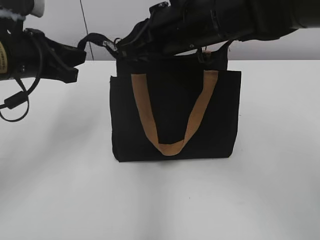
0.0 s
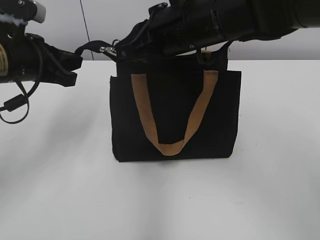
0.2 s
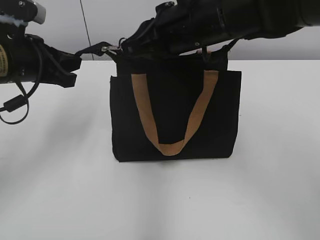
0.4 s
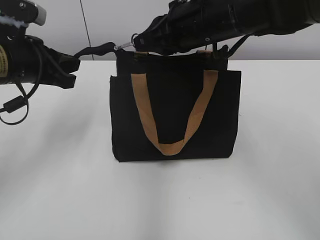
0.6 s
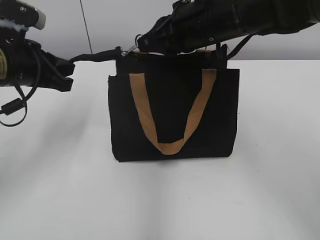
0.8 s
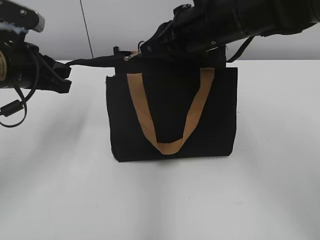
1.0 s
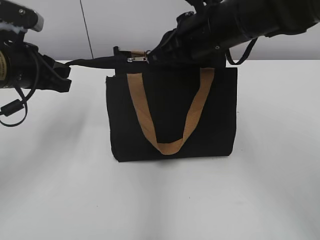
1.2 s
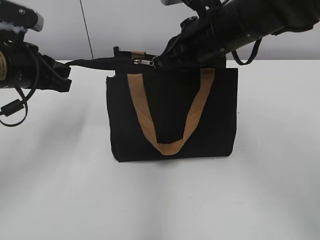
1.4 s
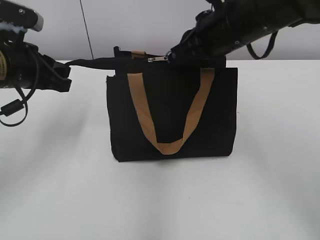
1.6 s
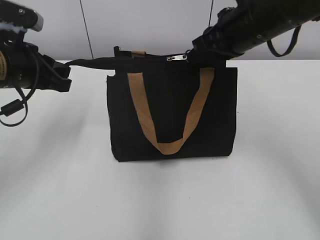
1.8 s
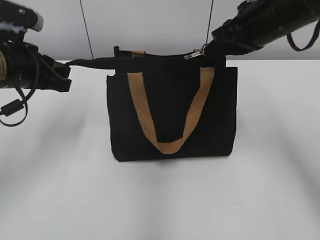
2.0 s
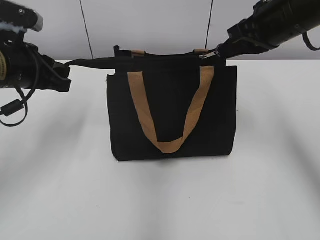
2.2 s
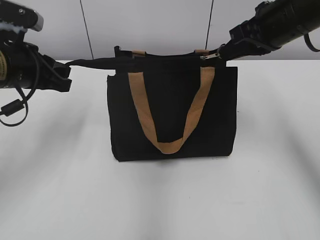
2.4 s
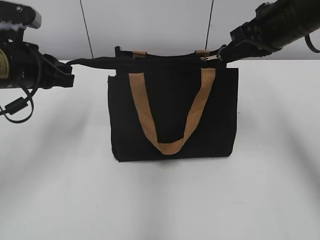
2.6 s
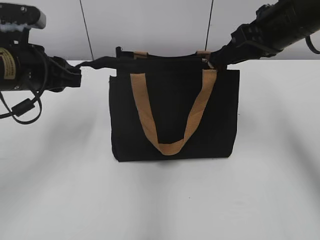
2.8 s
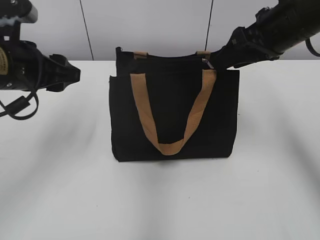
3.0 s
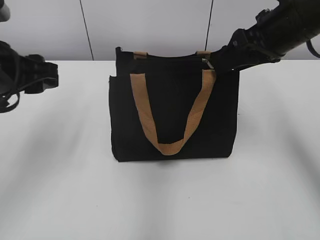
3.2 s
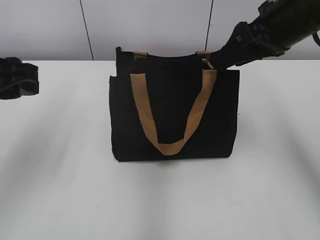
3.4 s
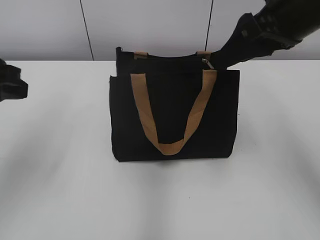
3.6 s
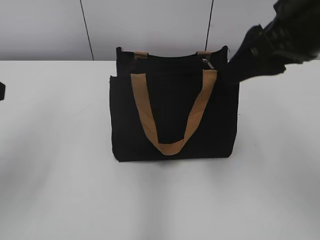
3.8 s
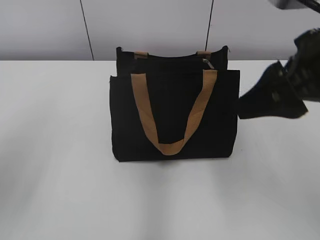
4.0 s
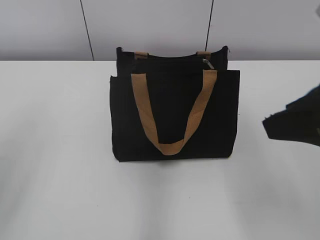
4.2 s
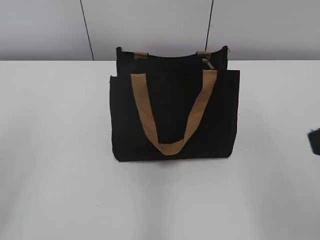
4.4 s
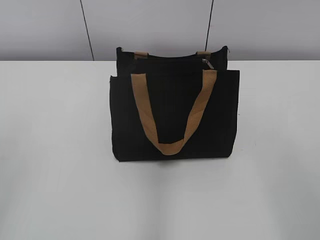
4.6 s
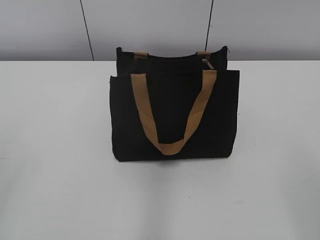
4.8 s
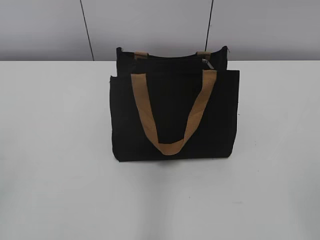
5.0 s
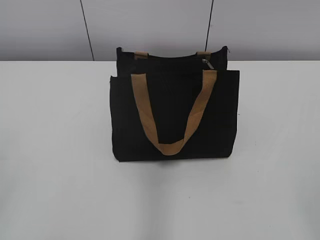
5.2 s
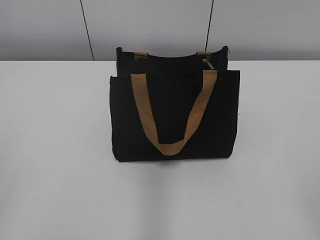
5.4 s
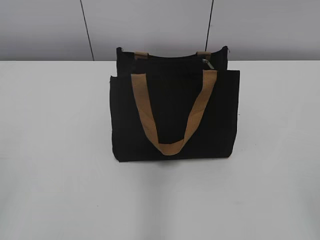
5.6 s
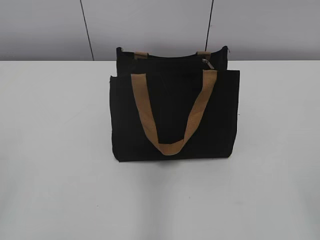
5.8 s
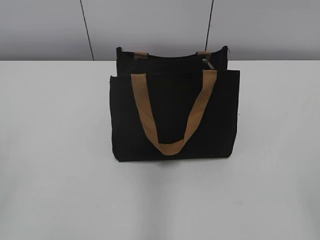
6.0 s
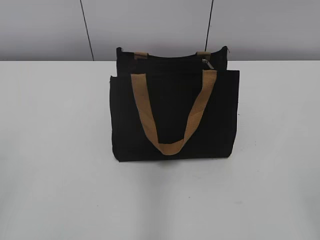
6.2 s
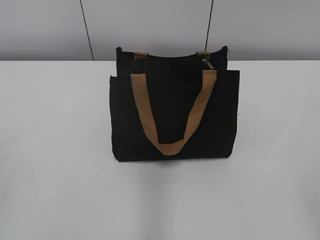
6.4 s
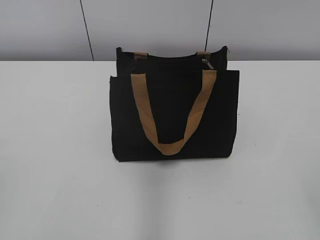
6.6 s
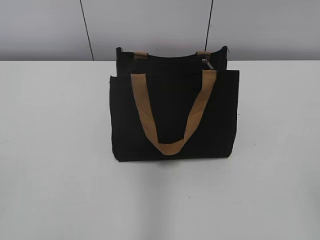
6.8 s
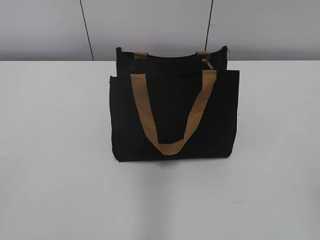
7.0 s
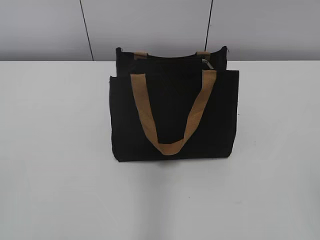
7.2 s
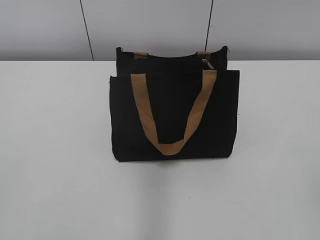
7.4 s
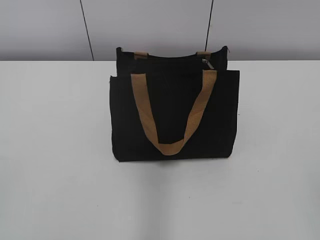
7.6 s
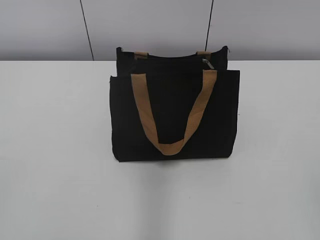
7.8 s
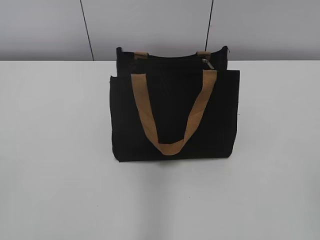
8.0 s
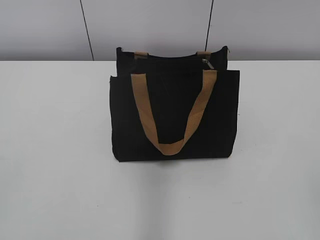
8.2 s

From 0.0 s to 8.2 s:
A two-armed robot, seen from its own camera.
Step, from 0.0 s to 2.6 s: Zip up the bag with your right hand.
From 0.0 s to 1.6 s: The right gripper heads to the right, covering roughly 5 cm.
From 1.6 s to 3.2 s: The right gripper is displaced to the right by approximately 10 cm, and opens its fingers. Meanwhile the left gripper opens.
From 3.2 s to 5.0 s: The left gripper shifts approximately 25 cm backward and to the left; the right gripper is displaced backward by some 35 cm.

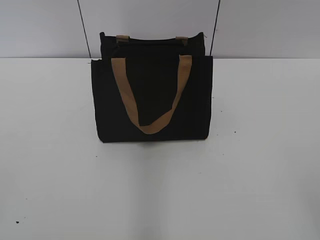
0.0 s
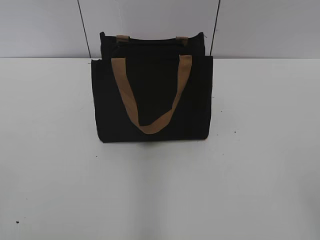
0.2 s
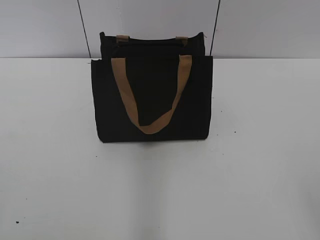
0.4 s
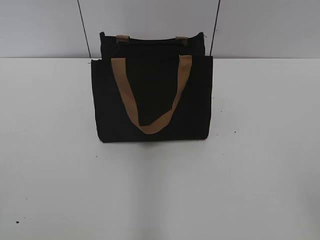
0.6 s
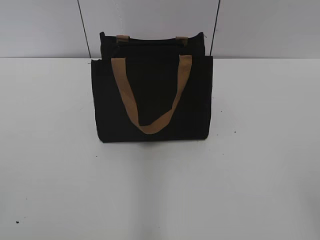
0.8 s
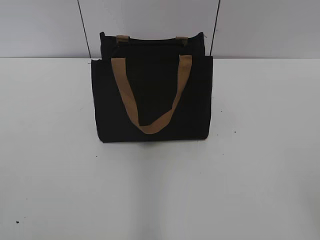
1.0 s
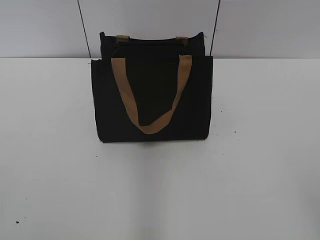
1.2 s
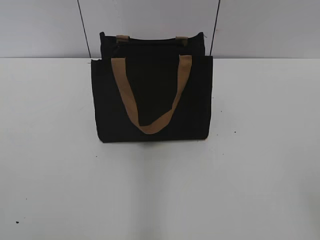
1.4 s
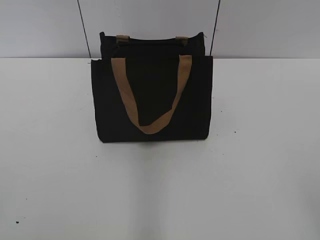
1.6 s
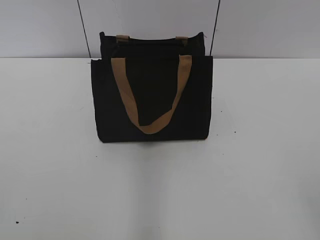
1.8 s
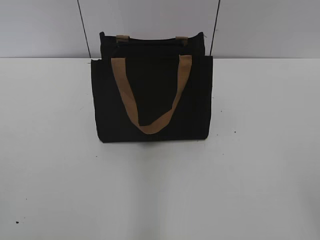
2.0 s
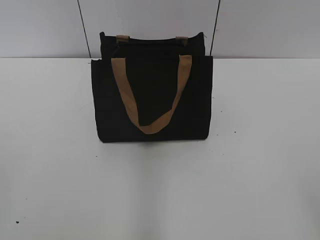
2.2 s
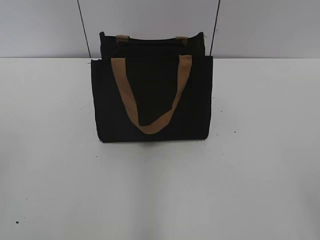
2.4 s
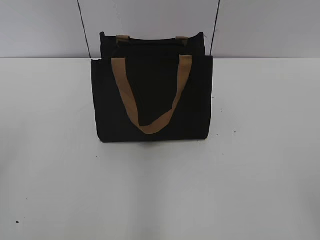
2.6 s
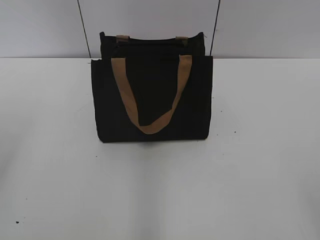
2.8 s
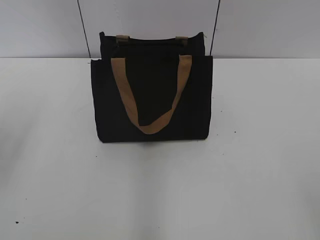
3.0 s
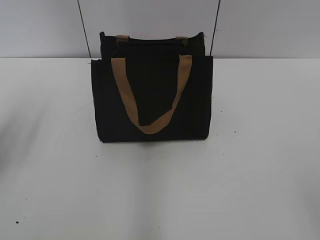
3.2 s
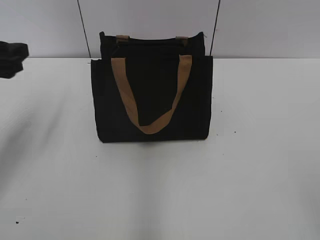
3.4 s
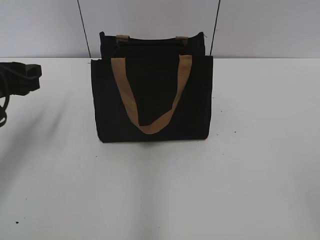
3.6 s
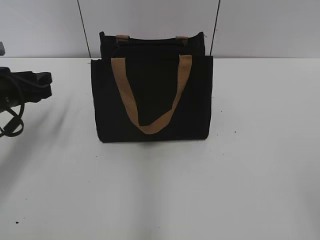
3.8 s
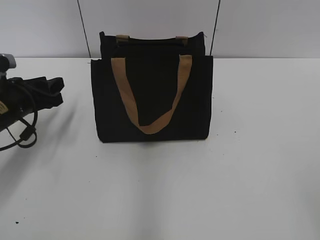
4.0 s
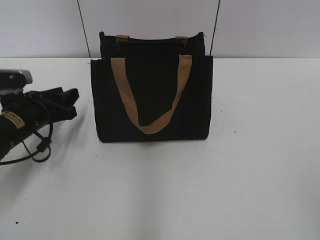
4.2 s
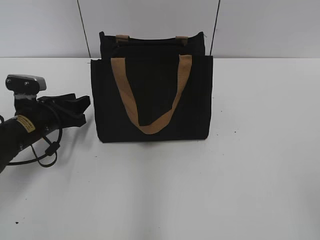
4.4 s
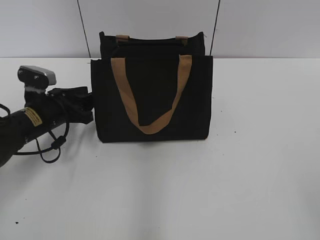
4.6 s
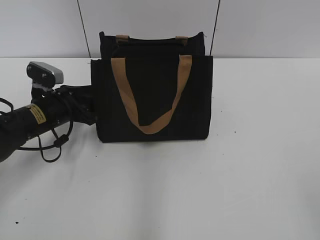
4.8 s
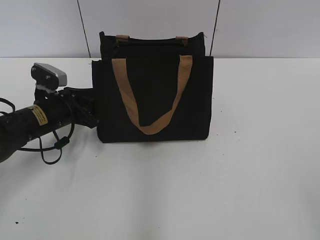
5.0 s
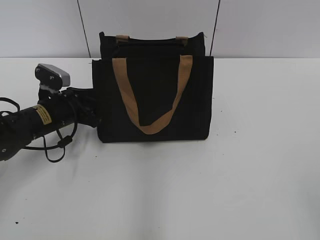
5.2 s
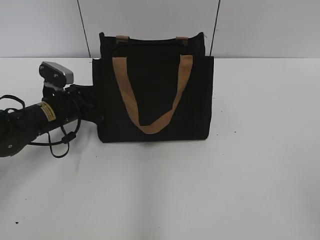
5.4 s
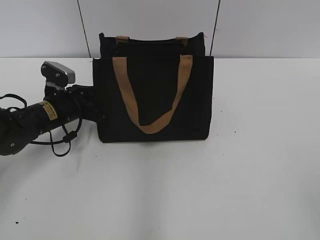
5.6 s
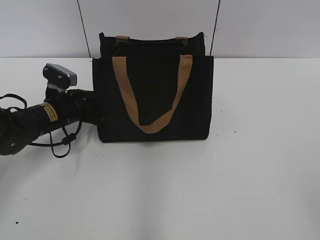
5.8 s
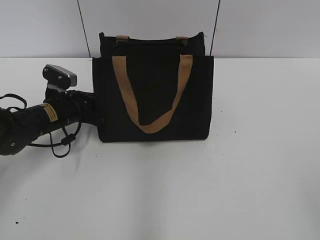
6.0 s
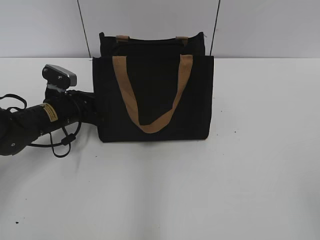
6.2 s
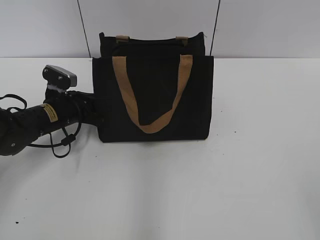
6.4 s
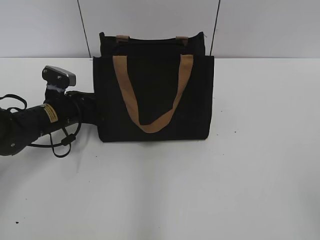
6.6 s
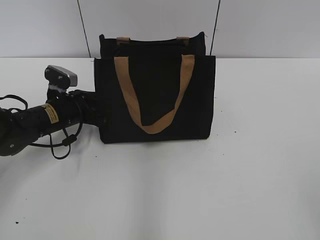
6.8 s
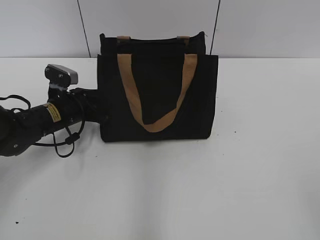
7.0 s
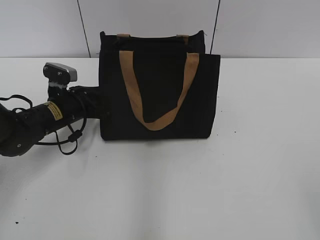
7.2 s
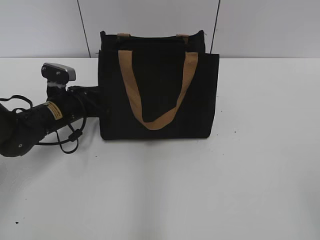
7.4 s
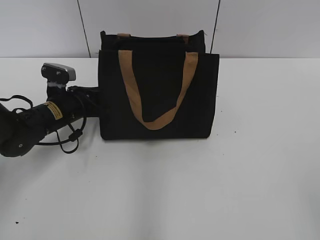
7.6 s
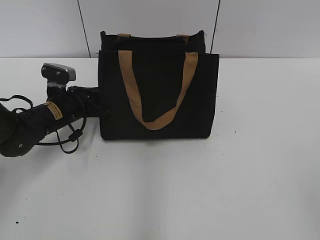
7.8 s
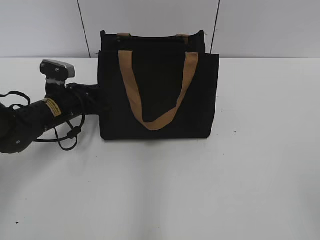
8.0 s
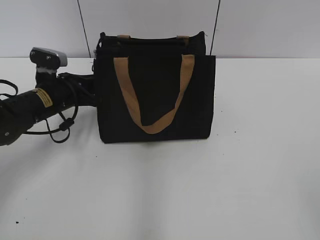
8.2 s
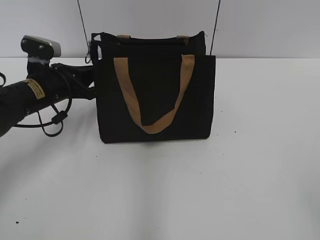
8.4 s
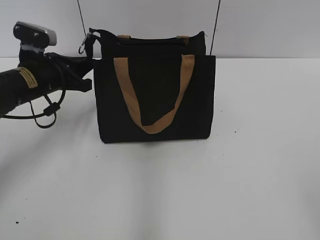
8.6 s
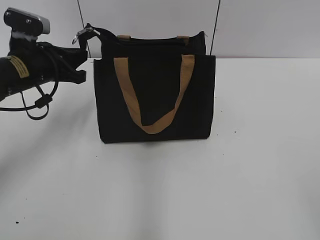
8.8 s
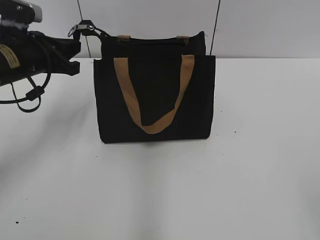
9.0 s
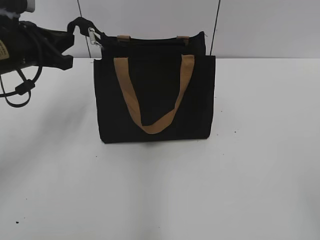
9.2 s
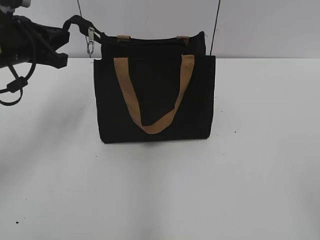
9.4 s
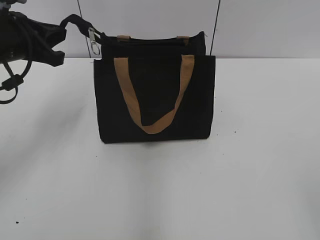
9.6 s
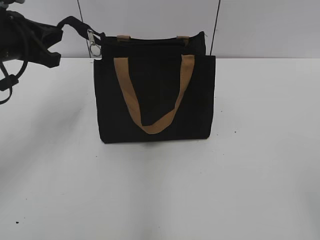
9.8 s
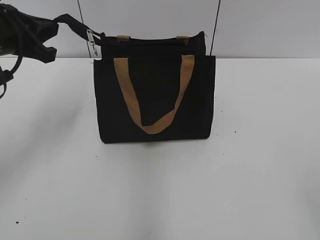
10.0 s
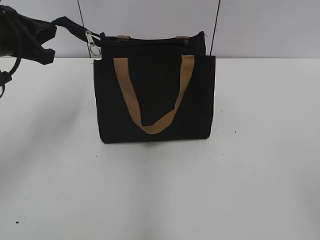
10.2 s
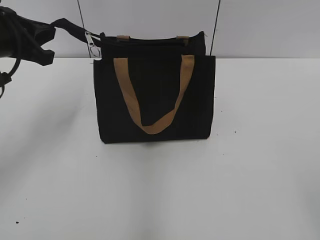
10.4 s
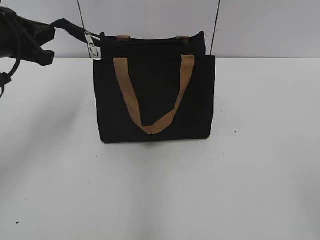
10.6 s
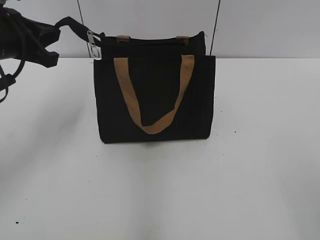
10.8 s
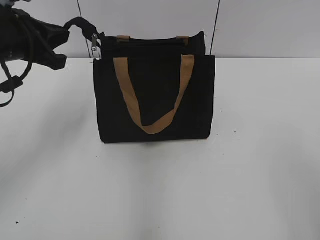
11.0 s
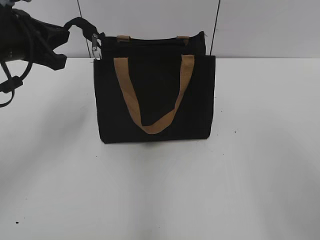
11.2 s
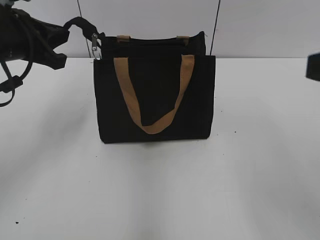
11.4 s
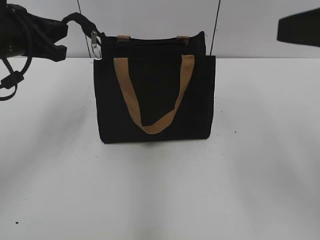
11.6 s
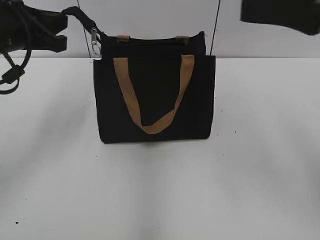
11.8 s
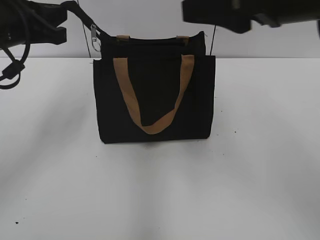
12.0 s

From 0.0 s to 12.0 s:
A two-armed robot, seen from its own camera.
From 3.0 s to 4.4 s: The left gripper is displaced downward and forward by some 25 cm.
From 4.4 s to 6.0 s: The left gripper ends up some 5 cm from where it was, and closes its fingers.
From 6.0 s to 7.6 s: The left gripper opens, then closes once more.
From 7.6 s to 9.0 s: The left gripper is displaced upward by about 10 cm.
From 9.0 s to 10.4 s: The left gripper goes roughly 5 cm upward.
From 10.4 s to 12.0 s: The right gripper travels forward and to the left by about 25 cm.

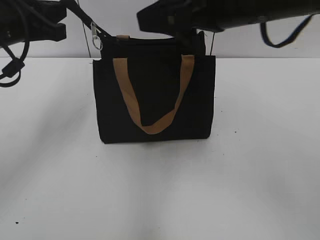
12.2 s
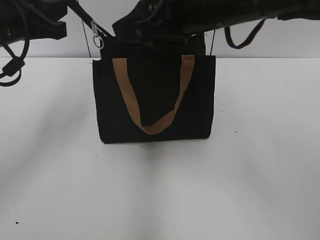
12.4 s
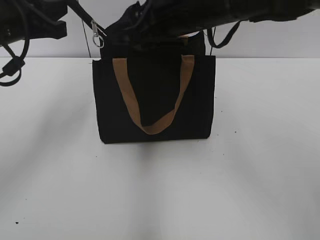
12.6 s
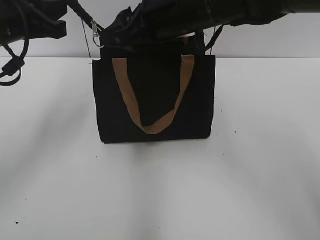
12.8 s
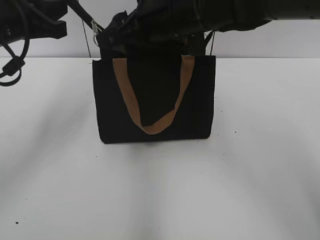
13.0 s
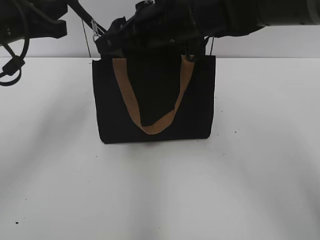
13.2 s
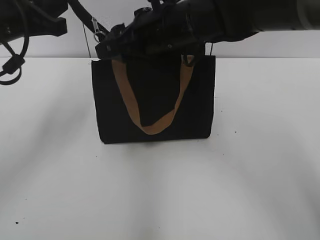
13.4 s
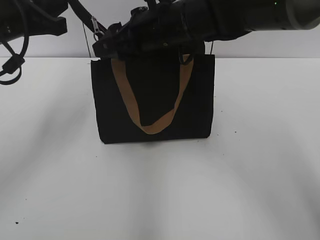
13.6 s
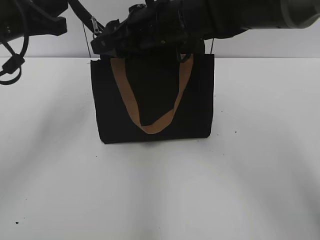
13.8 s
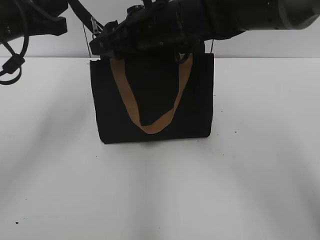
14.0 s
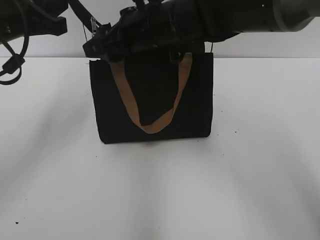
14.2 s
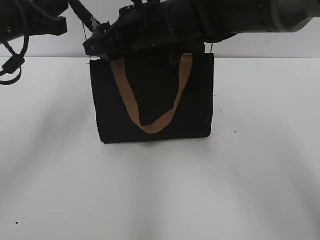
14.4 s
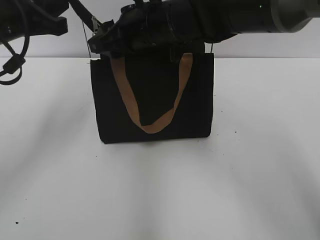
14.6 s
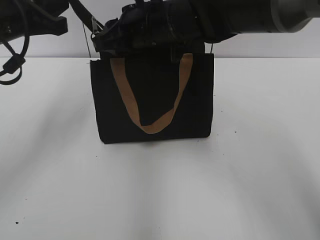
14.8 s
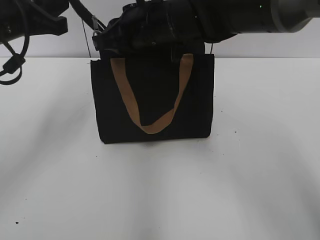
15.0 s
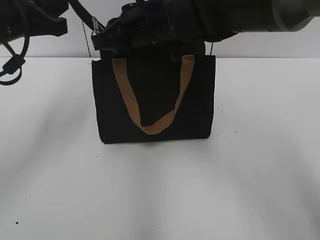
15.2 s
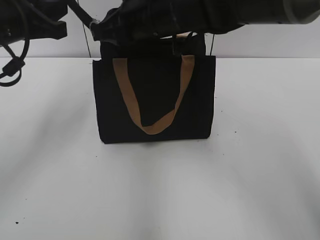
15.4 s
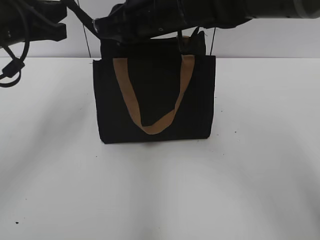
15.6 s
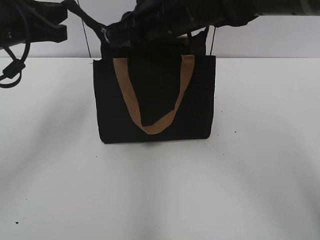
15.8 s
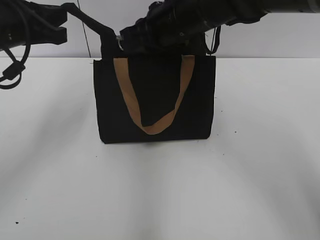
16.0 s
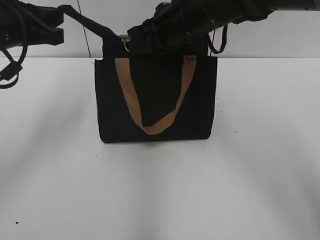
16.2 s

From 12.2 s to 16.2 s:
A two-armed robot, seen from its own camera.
From 12.2 s to 13.6 s: The right gripper travels forward, to the left and downward by roughly 15 cm.
From 13.6 s to 14.8 s: The right gripper closes.
From 14.8 s to 16.2 s: The right gripper closes its fingers.
